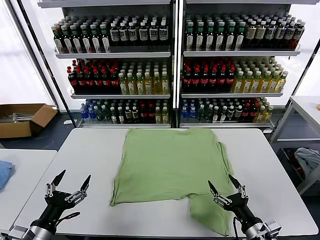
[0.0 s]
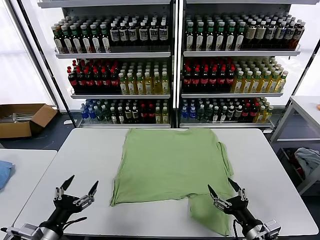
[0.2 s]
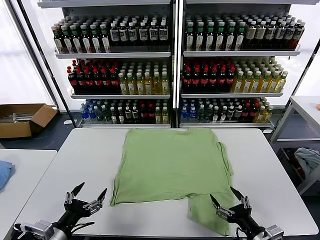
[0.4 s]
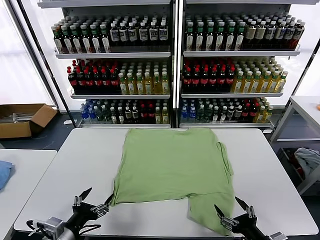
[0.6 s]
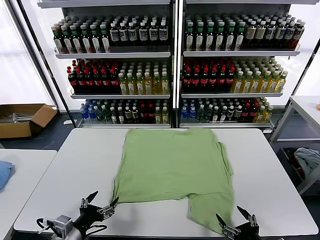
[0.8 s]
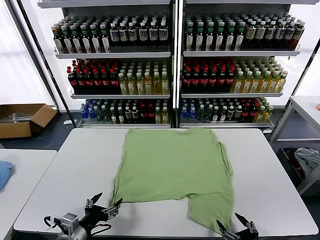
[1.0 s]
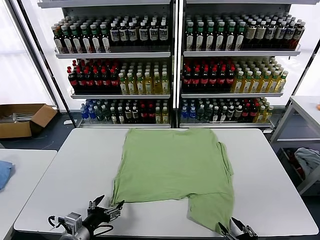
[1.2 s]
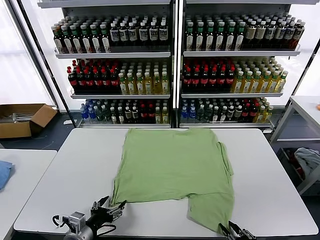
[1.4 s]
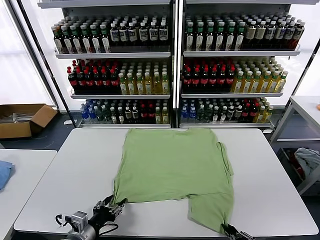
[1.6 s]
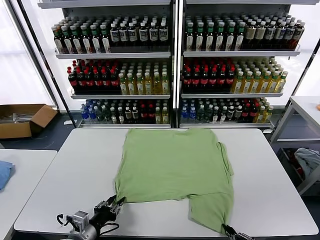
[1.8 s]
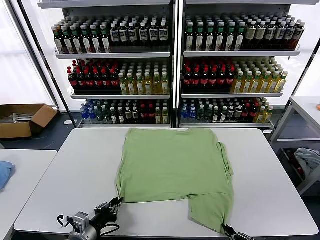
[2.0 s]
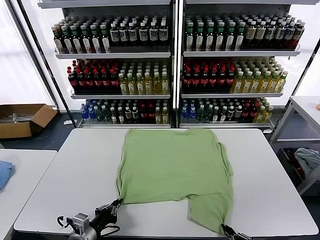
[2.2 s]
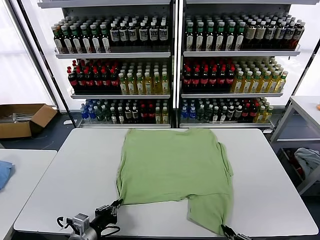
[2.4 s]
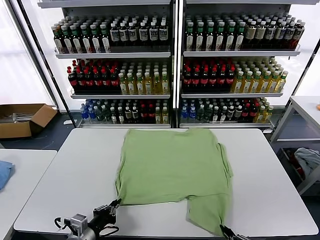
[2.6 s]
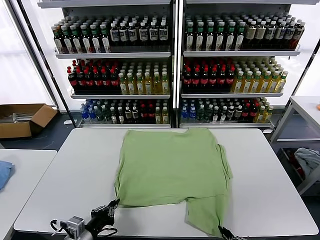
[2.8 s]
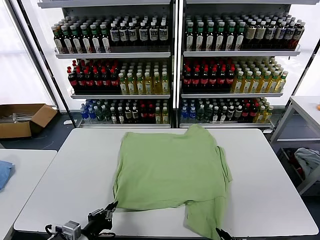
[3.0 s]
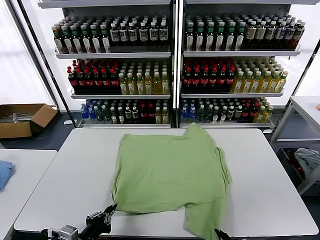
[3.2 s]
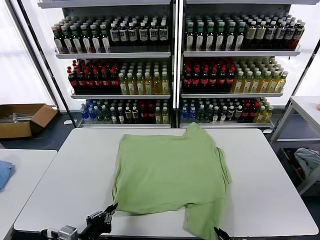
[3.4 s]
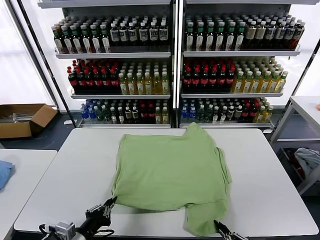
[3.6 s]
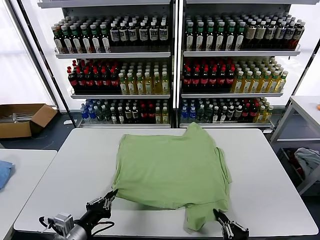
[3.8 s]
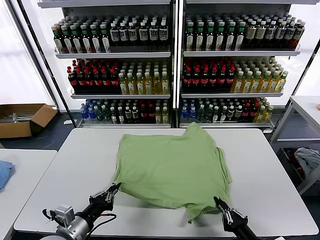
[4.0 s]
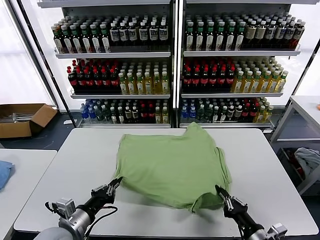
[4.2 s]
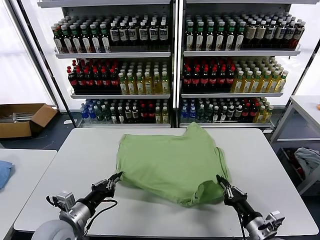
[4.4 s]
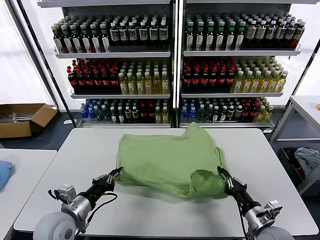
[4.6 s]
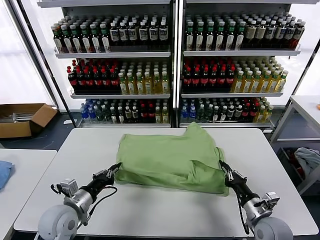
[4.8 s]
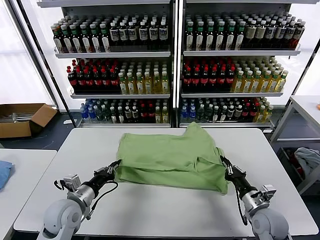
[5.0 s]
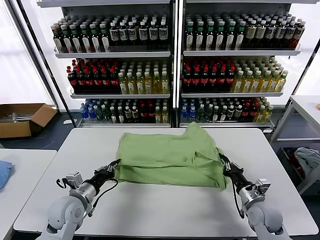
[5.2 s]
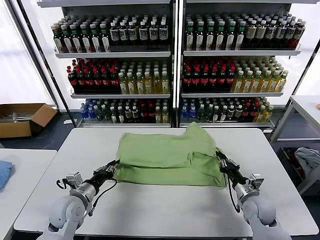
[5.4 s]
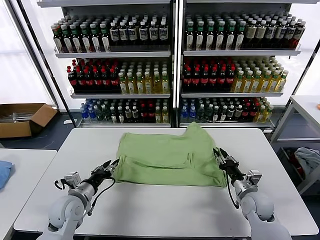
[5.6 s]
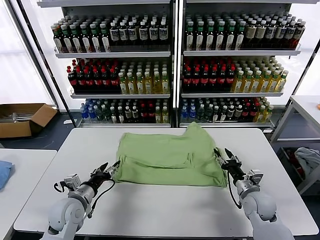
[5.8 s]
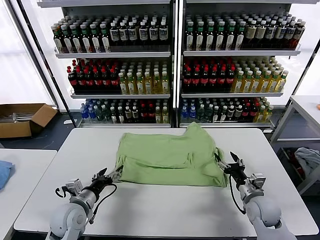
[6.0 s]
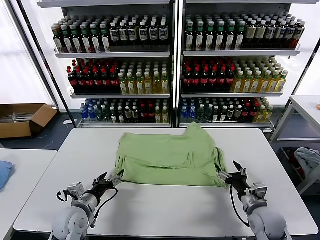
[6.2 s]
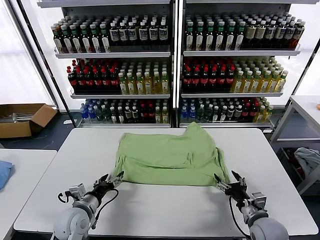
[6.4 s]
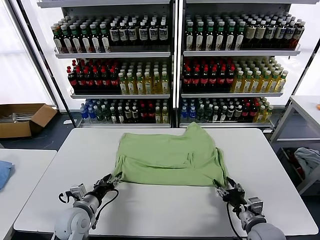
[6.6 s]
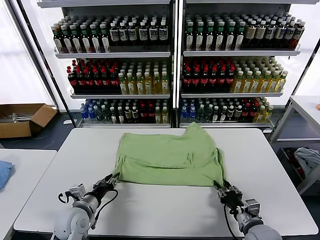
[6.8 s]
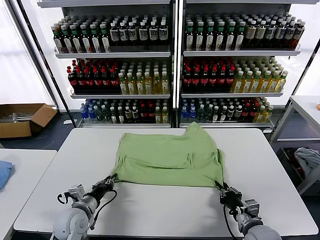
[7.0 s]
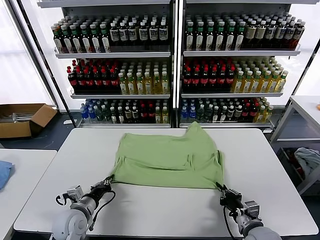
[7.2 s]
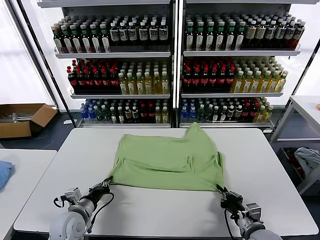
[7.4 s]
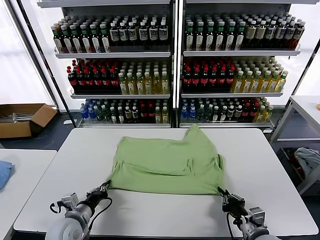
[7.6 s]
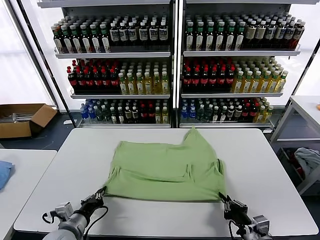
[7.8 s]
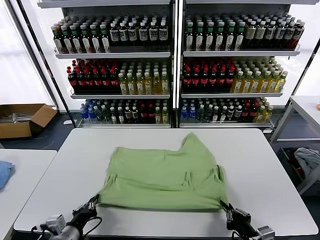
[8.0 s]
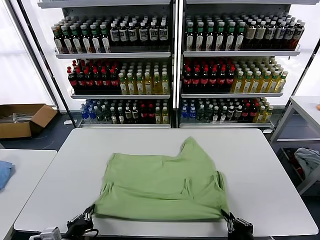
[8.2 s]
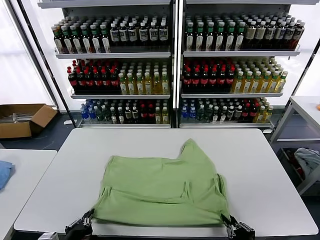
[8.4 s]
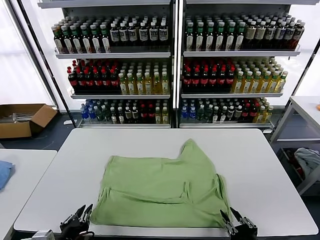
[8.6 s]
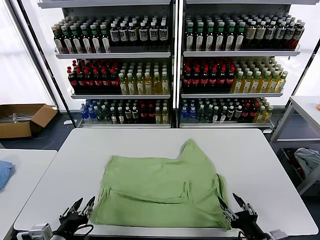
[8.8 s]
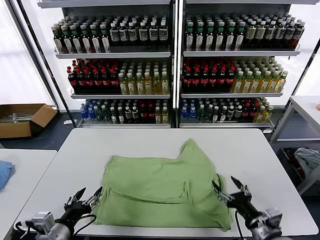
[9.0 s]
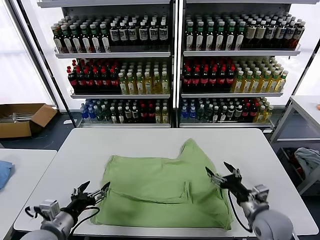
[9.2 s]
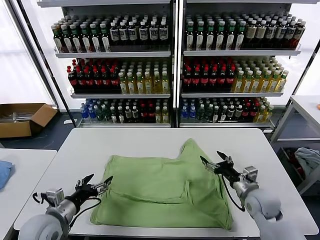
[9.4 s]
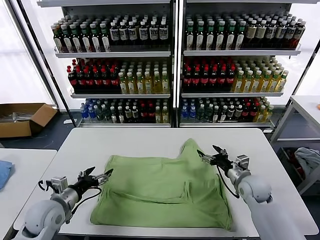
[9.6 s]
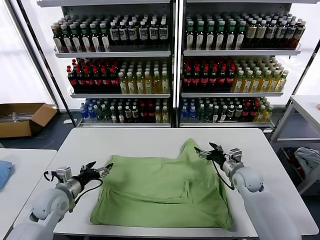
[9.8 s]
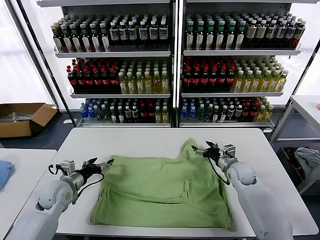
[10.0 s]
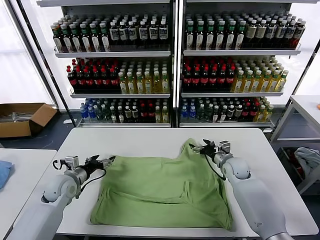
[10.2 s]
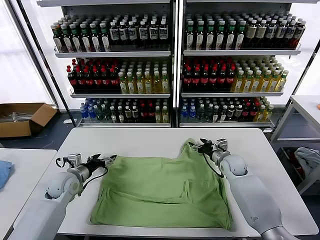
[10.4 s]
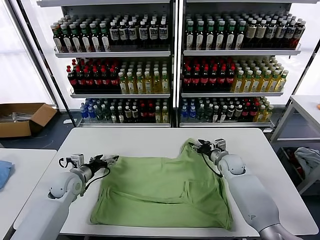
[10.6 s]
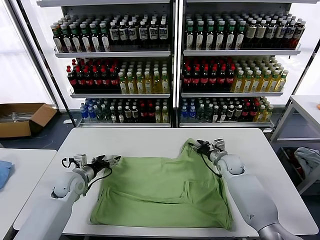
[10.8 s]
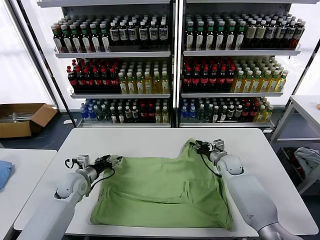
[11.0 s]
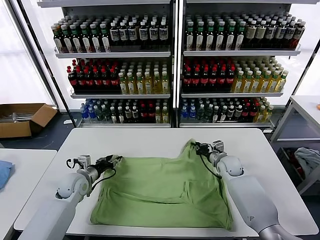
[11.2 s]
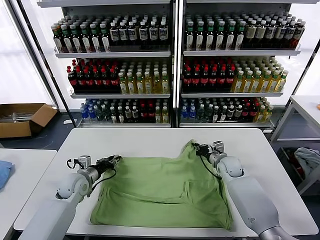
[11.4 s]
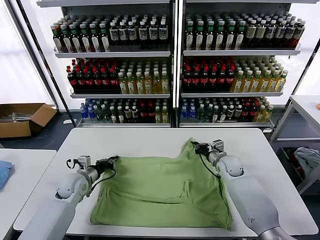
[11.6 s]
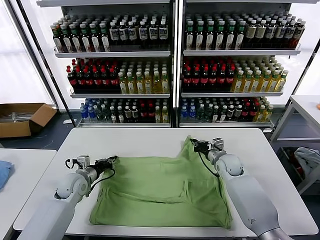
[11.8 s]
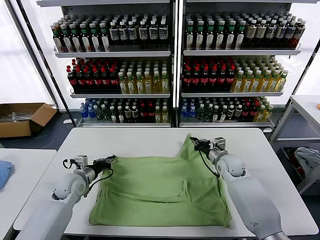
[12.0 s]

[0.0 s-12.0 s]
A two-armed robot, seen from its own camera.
Task of the whole recording: fold and organize the clothes.
Step, 0.0 to 2.0 s: use both grippers simultaneously to clamp the lower edge of the clothing fabric.
Step, 2.2 to 5.6 s: use both grippers to drag the lower edge of the fabric forward and fold it over the upper edge.
Step, 5.8 to 8.4 s: Drag the clothes downward with both gripper.
Step, 8.8 to 11.6 s: use both grippers simultaneously to clamp the upper edge of the clothing fabric.
1.6 to 3.0 s: The left gripper ends up about 5 cm from where it was, and closes.
3.0 to 4.4 s: The right gripper heads forward, covering roughly 15 cm. The left gripper travels forward by some 5 cm.
4.4 to 6.0 s: The left gripper goes roughly 10 cm forward and downward, and opens its fingers. The right gripper heads forward, covering approximately 10 cm, and opens up.
6.0 to 7.6 s: The right gripper travels backward by roughly 10 cm, and closes its fingers. Meanwhile the left gripper closes up.
7.6 to 9.0 s: The right gripper goes backward and returns, some 10 cm each way, and opens its fingers. Meanwhile the left gripper goes some 15 cm backward and upward, and opens up.
9.0 to 10.4 s: Both grippers move forward, roughly 25 cm.
10.4 to 12.0 s: The right gripper closes up, while the left gripper closes.

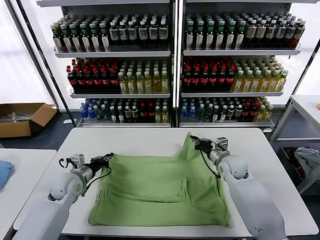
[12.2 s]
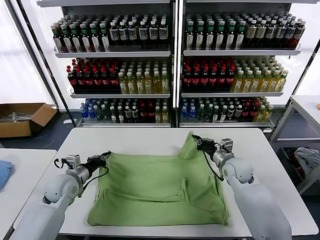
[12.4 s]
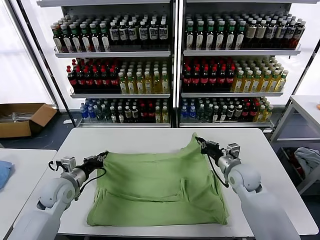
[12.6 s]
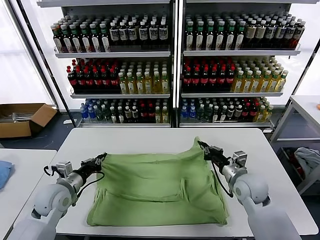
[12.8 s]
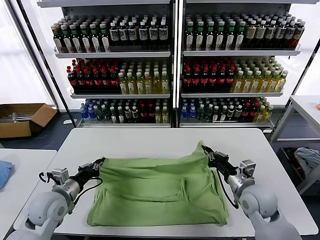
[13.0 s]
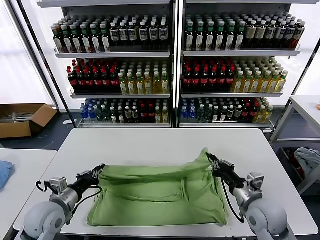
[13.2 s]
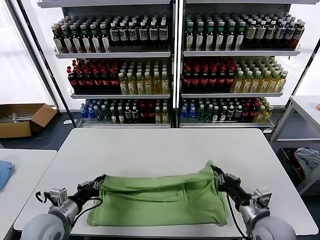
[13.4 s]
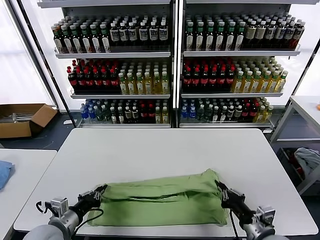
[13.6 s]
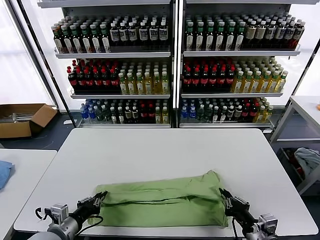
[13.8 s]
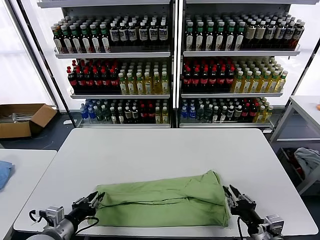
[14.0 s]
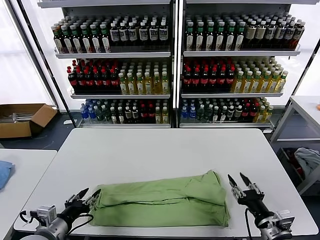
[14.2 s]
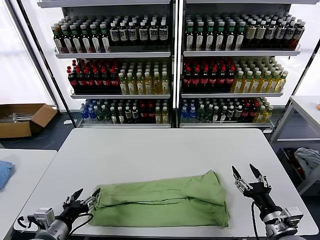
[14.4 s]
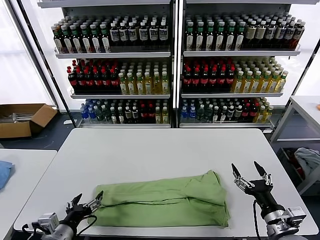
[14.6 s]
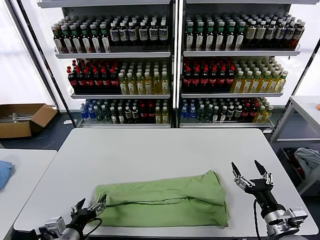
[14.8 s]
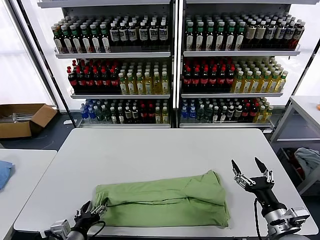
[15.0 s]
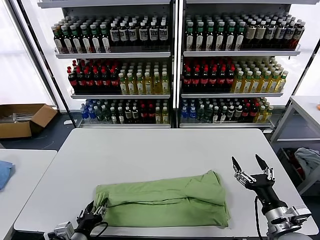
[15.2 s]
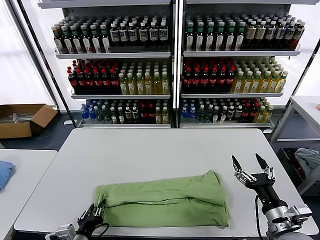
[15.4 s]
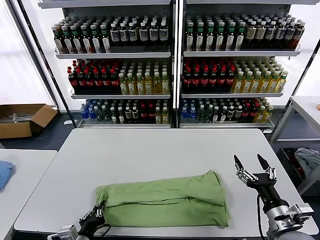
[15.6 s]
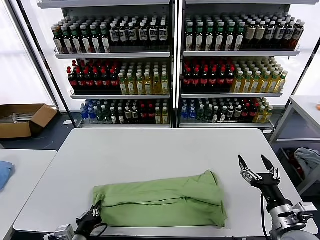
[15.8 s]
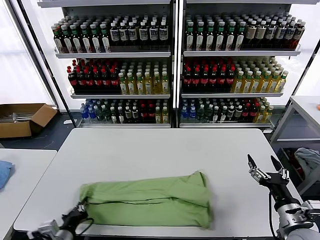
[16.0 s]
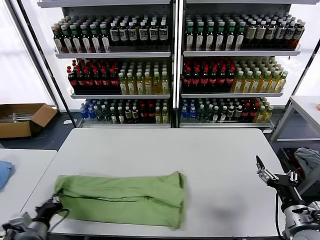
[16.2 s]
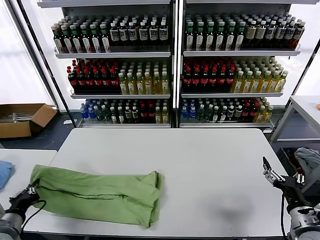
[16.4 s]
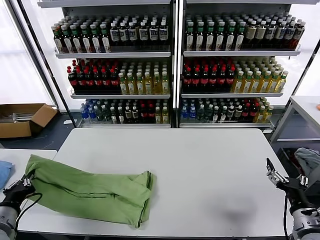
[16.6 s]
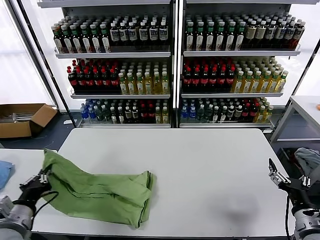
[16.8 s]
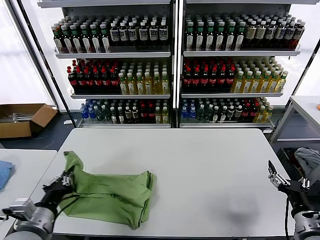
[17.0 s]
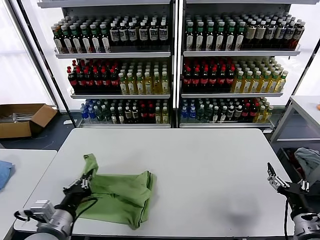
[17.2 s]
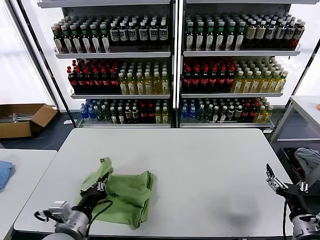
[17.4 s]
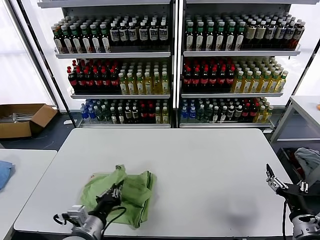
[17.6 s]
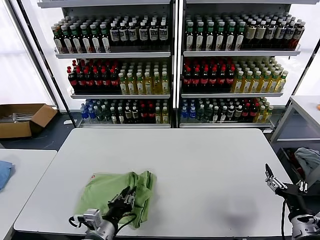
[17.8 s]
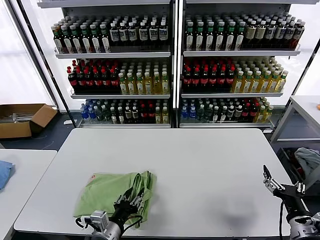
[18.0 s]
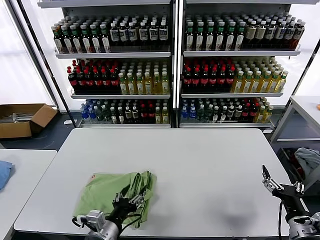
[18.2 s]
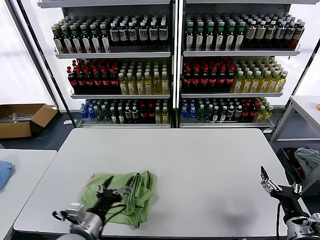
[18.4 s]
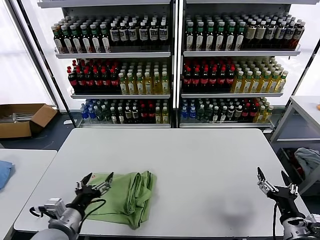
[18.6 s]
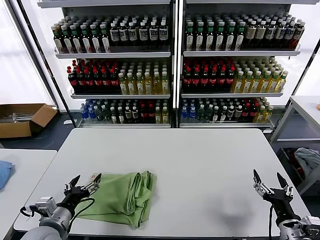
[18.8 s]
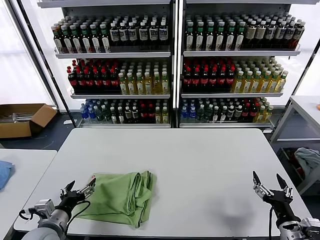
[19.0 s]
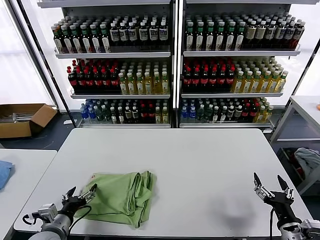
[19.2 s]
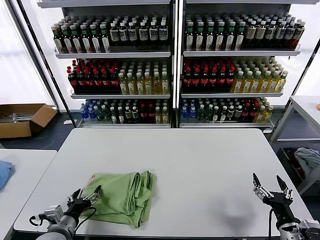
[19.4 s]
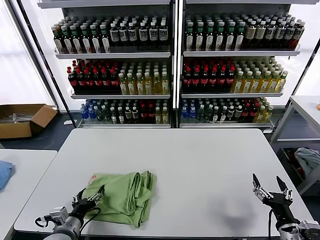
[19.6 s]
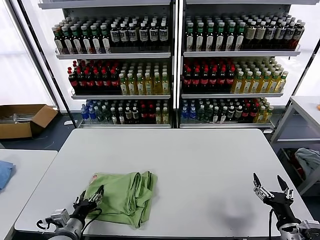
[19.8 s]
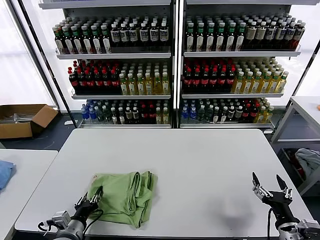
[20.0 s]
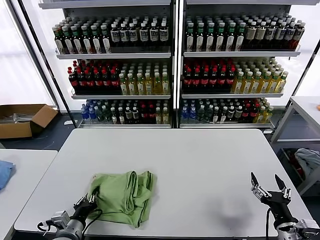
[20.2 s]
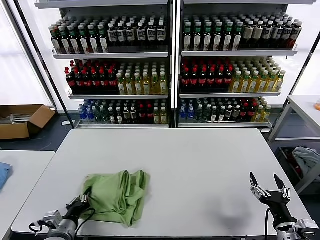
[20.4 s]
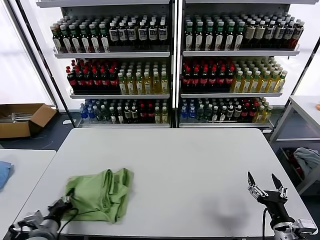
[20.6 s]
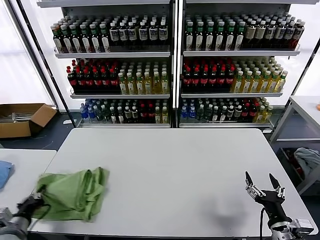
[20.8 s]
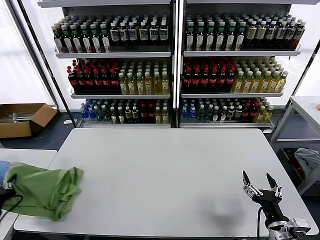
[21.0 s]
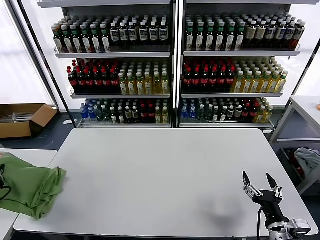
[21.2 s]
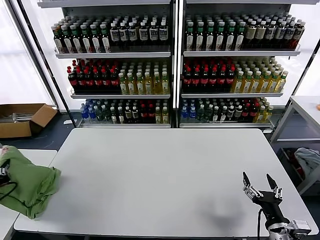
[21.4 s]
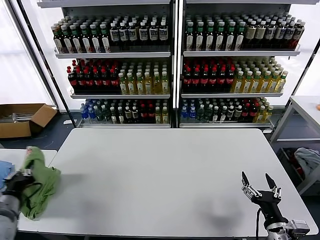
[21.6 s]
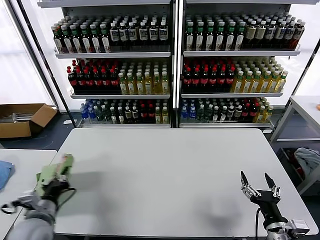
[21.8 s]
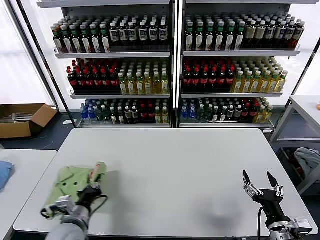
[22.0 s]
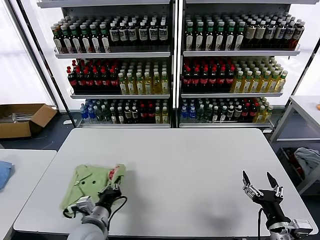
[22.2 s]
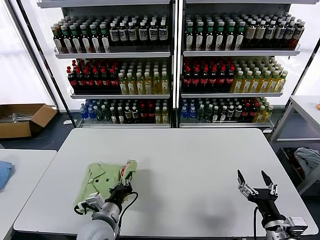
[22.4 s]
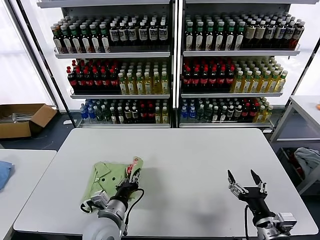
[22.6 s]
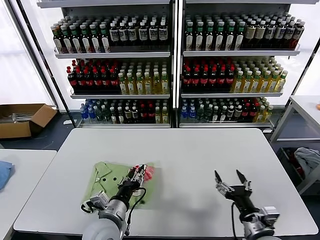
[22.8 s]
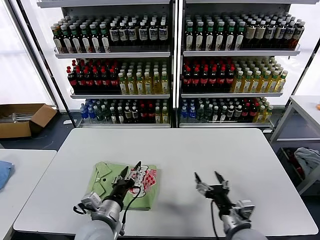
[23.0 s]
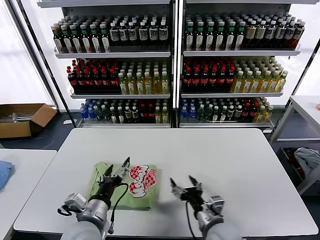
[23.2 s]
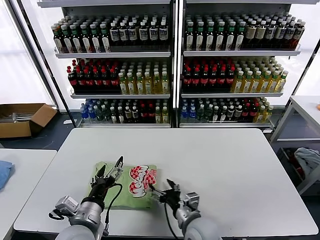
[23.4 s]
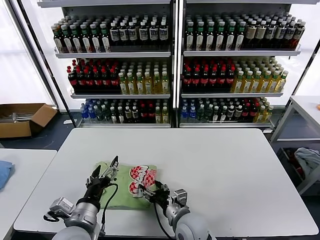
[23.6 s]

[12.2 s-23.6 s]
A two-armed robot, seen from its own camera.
Task of the whole recording: fold and organize the clothes.
Step, 12.2 to 14.0 s: use both grippers to drag the upper edge of the fabric backward and fold it over the lower edge.
Step, 14.2 to 15.6 s: use the left gripper to clamp the left edge of the fabric.
Step, 15.8 to 18.0 s: use the left gripper to drag the left edge of the fabric to the left and folds it over the right edge.
Step, 18.4 to 22.8 s: Flip the folded clothes over with left gripper.
12.2 to 13.6 s: The right gripper moves backward, some 30 cm, while the left gripper goes some 20 cm backward.
13.6 to 15.0 s: The left gripper heads backward, covering approximately 5 cm, and opens its fingers. The right gripper opens its fingers.
15.0 to 16.4 s: The left gripper moves to the left, roughly 15 cm, and closes its fingers; the right gripper travels to the right by some 5 cm.
16.4 to 17.8 s: The left gripper shifts roughly 20 cm to the right.
17.8 to 19.4 s: The left gripper shifts approximately 10 cm to the left, and opens its fingers.
19.4 to 20.8 s: The left gripper heads to the left, covering some 10 cm, and closes up.
20.8 to 22.2 s: The left gripper is displaced to the right by approximately 20 cm.
22.2 to 23.6 s: The left gripper moves upward, about 5 cm, and opens its fingers. Meanwhile the right gripper shifts some 25 cm to the left and forward.
